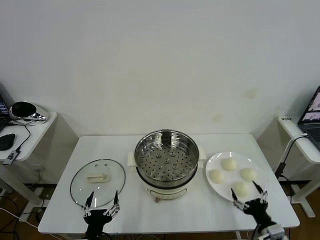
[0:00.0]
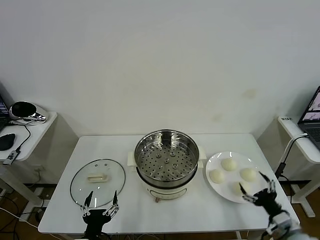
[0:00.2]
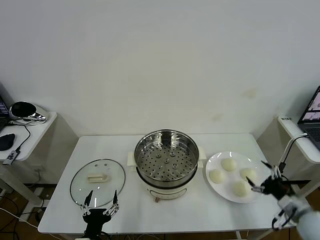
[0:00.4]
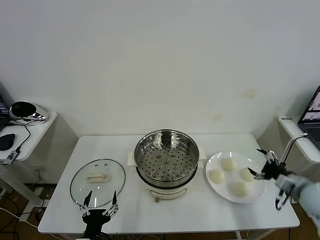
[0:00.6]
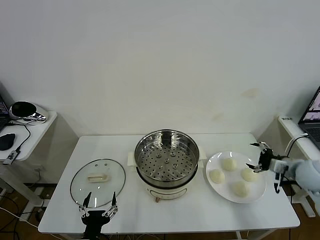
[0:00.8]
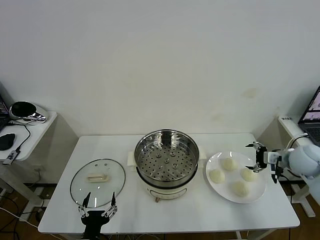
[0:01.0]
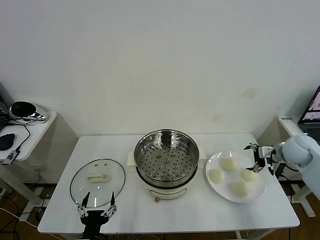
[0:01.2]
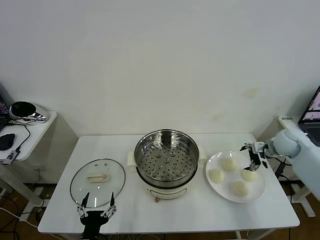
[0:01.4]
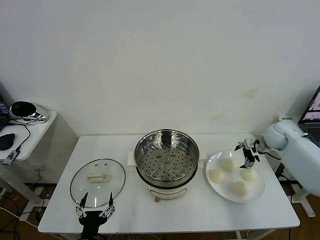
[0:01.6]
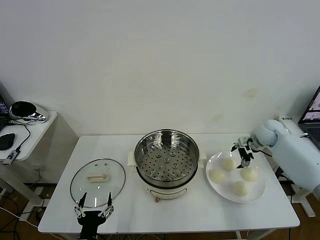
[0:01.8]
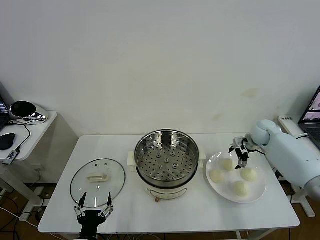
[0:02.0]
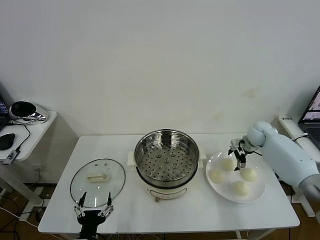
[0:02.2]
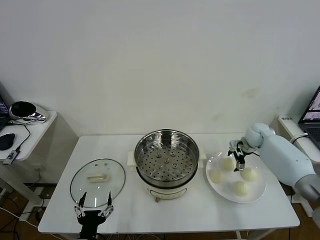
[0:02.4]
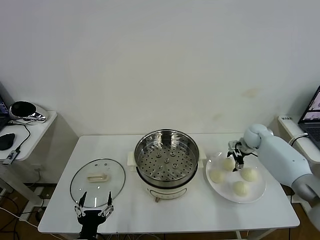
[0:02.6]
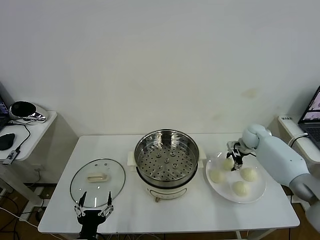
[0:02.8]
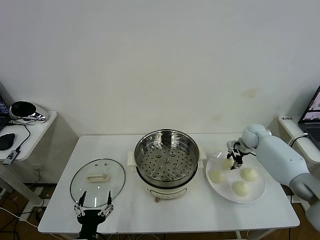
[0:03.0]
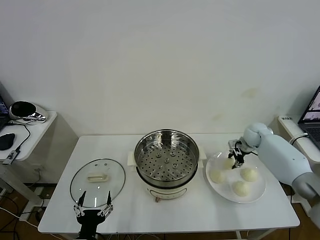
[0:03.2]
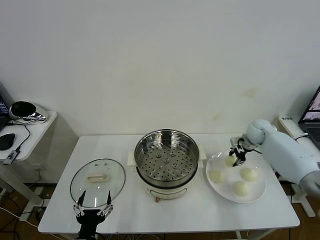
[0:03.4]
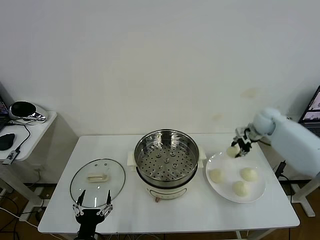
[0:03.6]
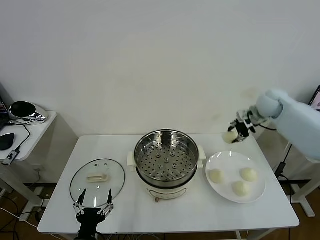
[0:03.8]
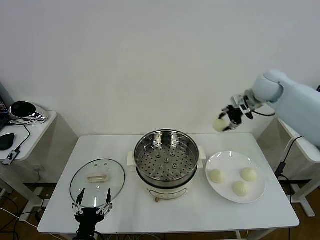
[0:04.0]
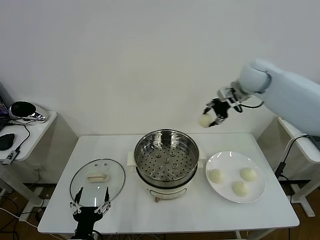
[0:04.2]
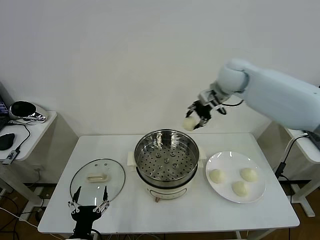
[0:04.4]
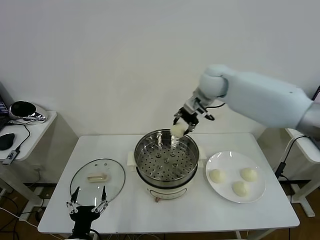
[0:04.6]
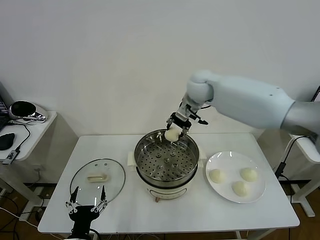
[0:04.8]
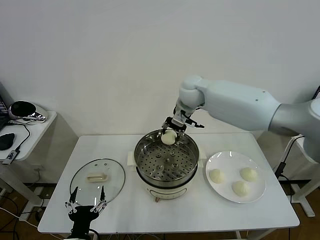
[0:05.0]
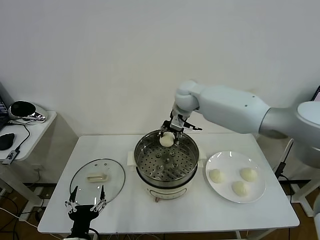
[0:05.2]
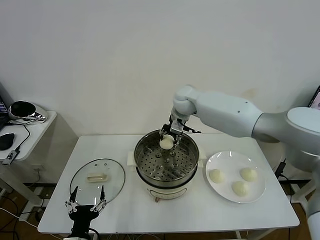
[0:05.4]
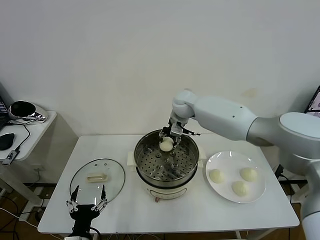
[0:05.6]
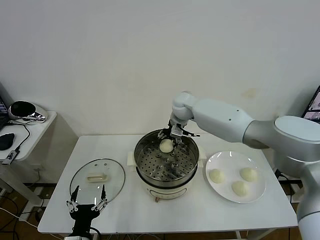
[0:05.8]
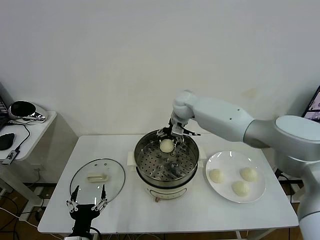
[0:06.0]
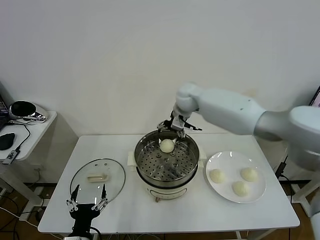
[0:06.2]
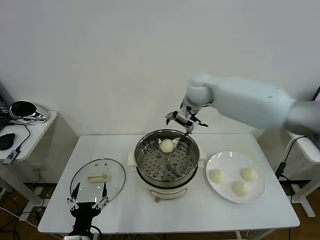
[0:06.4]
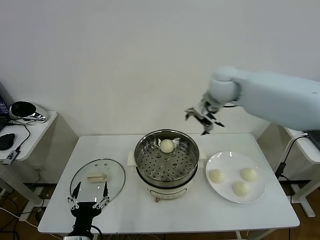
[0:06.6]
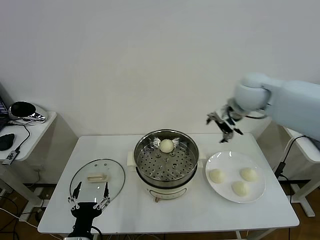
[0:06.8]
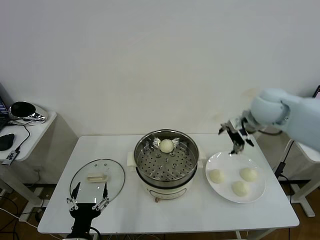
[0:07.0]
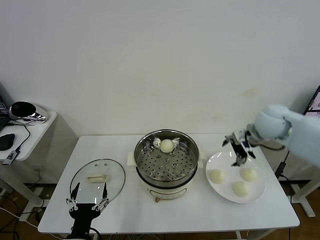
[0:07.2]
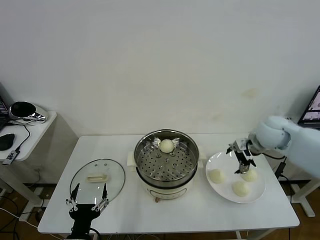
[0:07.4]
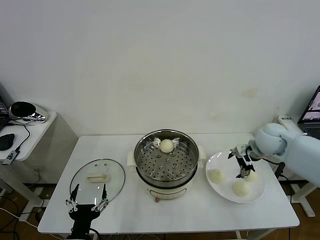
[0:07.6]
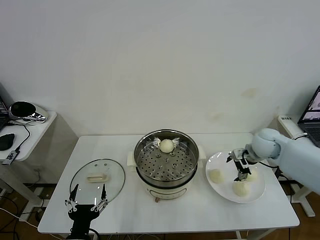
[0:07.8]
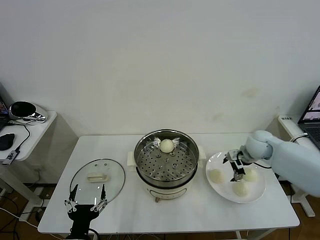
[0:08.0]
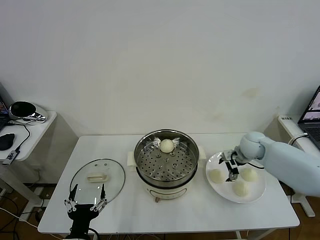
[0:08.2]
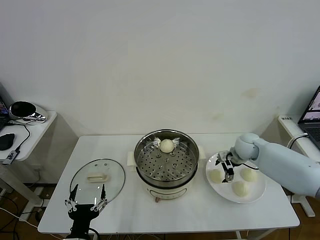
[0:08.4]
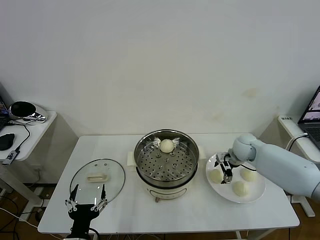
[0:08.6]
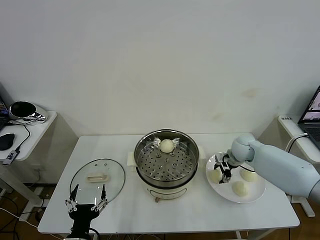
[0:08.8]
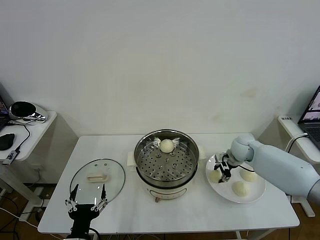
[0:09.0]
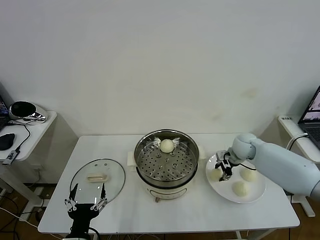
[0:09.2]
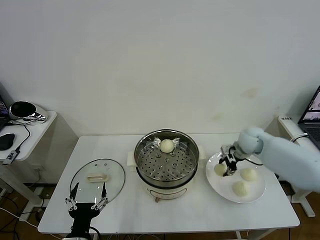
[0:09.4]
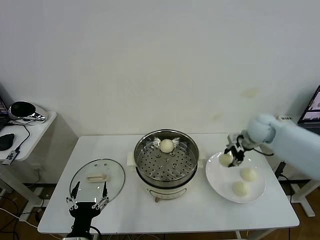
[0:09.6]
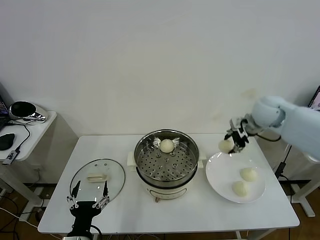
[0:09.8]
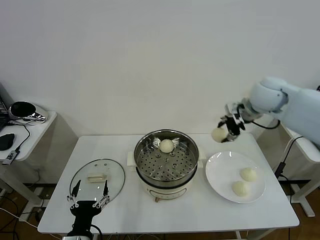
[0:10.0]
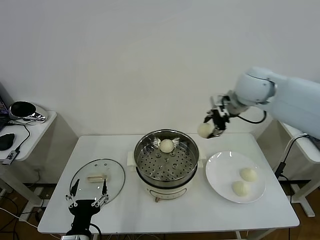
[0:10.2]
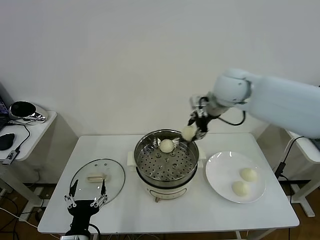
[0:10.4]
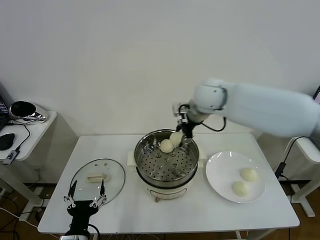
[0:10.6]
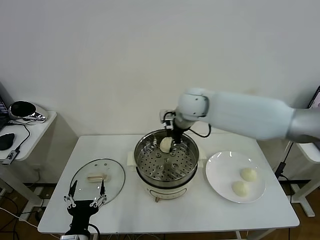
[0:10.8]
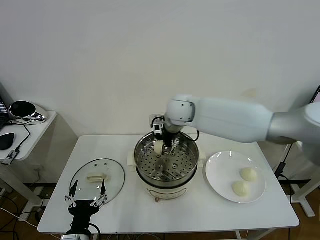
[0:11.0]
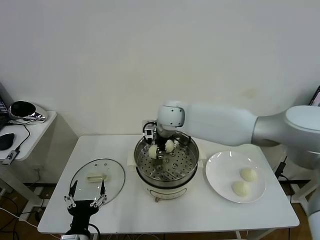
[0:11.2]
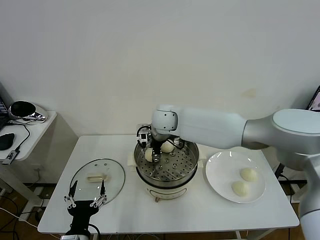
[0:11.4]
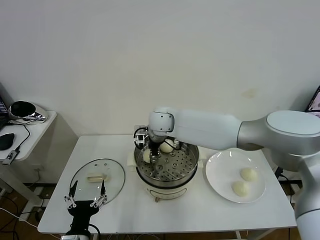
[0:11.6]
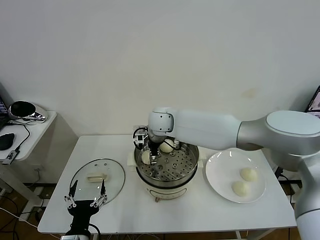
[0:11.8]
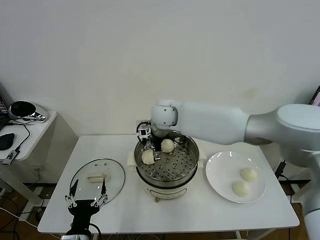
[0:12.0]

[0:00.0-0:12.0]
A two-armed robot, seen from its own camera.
Task of the whole recording: take steamed baozi put them in steamer then cover it.
Step, 0.0 to 2.8 s: Grasp the baozi in the plate with right gripper.
Step, 3.0 to 6.0 s: Place the baozi on the steamer with right gripper.
Step, 6.2 to 9.0 s: Grasp the baozi in the plate with right gripper.
Step, 9.2 to 11.8 s: Place the baozi on the steamer with right gripper.
1.6 to 3.0 s: The right gripper changes place by roughly 5 cm, and closes up.
3.0 to 4.4 s: The right gripper moves upward and to the left, some 30 cm.
4.4 to 6.0 s: The right gripper moves downward and to the left, about 15 cm, and opens its fingers.
6.0 to 7.6 s: The right gripper shifts roughly 30 cm to the right and backward.
7.6 to 9.0 s: The right gripper heads downward, covering roughly 10 cm, and closes its fingers.
9.0 to 10.4 s: The right gripper goes roughly 30 cm upward and to the left.
10.4 to 12.0 s: The right gripper travels to the left and downward by some 15 cm, and opens its fingers.

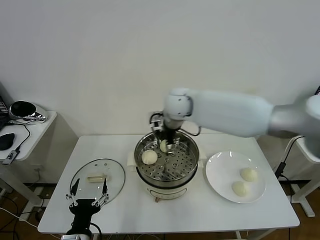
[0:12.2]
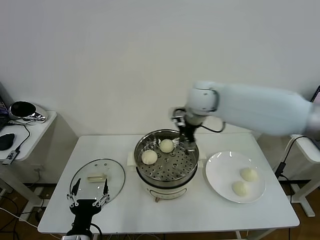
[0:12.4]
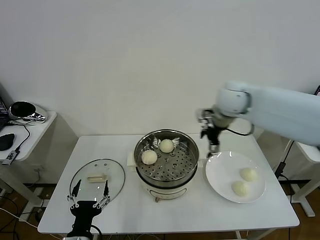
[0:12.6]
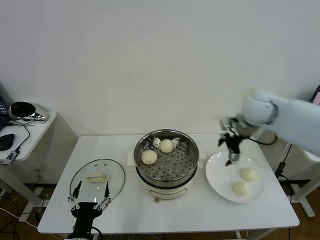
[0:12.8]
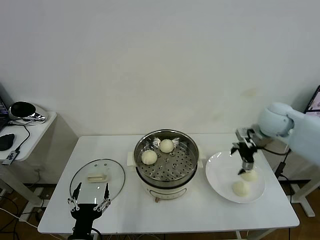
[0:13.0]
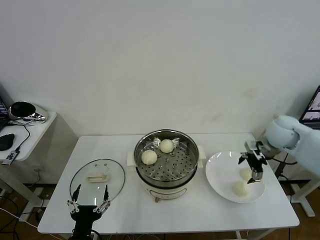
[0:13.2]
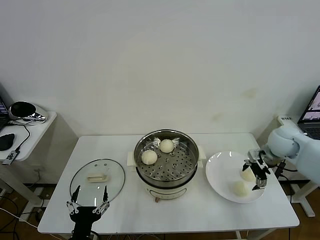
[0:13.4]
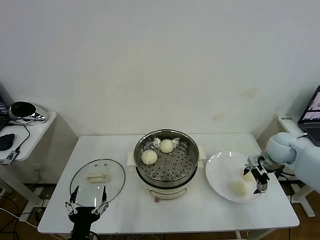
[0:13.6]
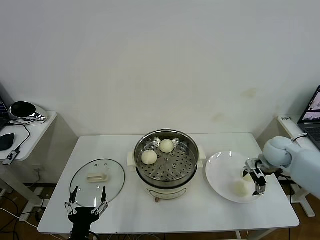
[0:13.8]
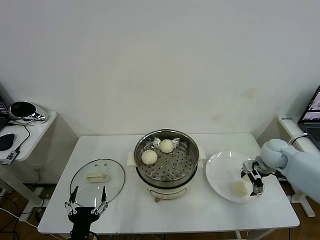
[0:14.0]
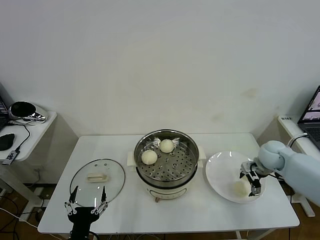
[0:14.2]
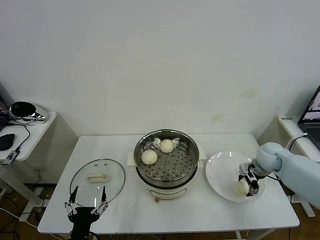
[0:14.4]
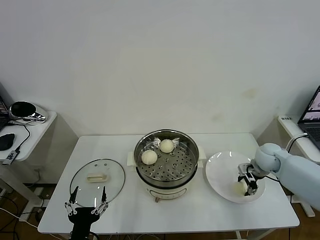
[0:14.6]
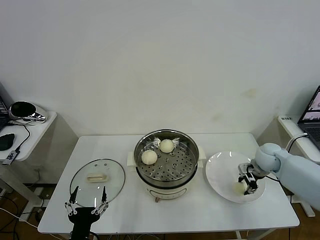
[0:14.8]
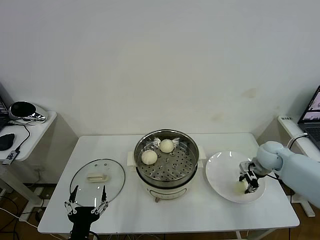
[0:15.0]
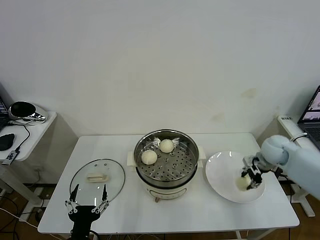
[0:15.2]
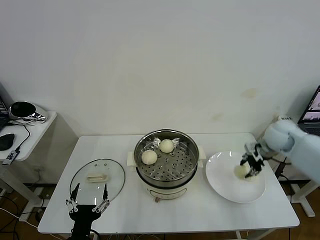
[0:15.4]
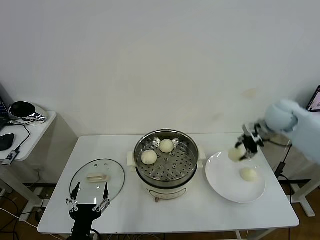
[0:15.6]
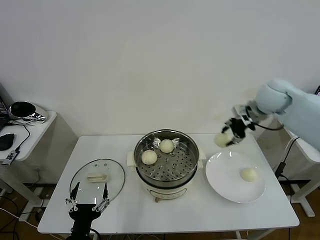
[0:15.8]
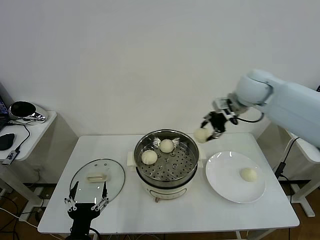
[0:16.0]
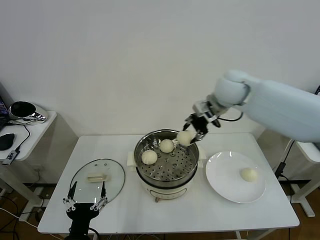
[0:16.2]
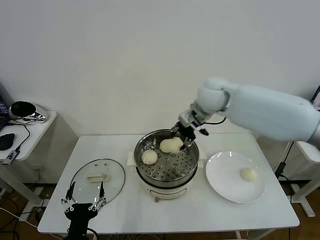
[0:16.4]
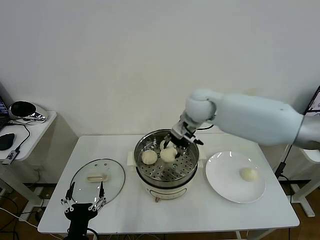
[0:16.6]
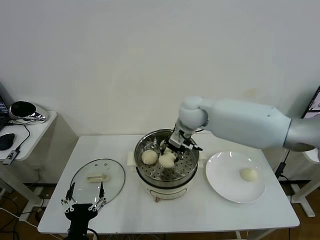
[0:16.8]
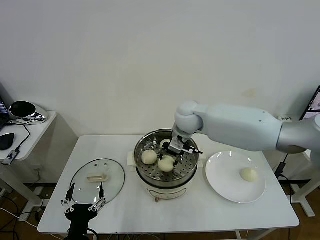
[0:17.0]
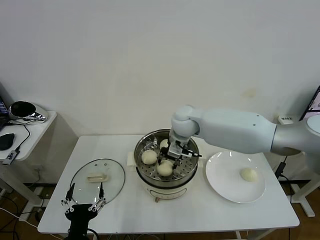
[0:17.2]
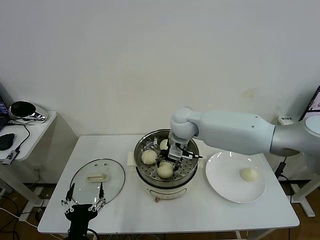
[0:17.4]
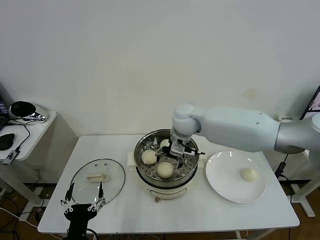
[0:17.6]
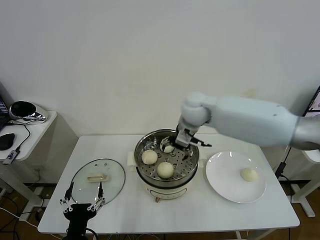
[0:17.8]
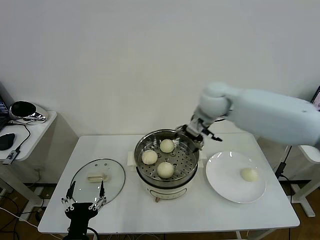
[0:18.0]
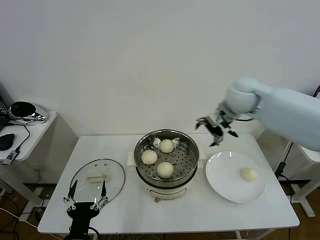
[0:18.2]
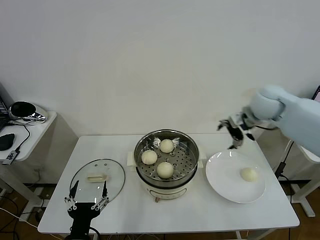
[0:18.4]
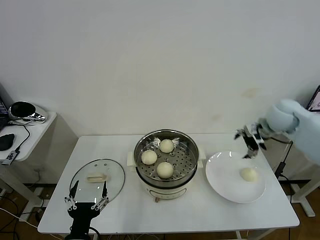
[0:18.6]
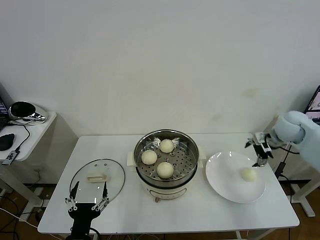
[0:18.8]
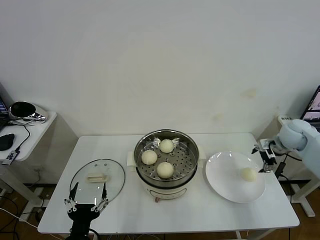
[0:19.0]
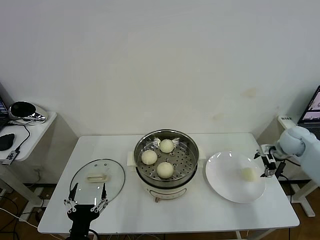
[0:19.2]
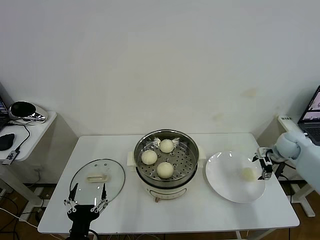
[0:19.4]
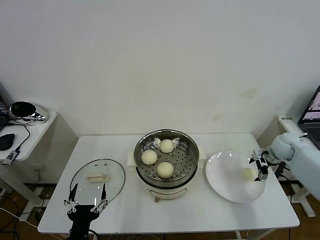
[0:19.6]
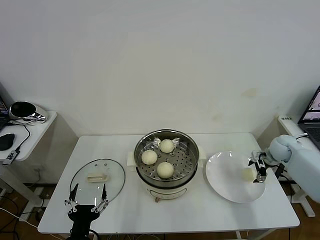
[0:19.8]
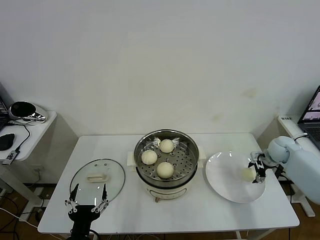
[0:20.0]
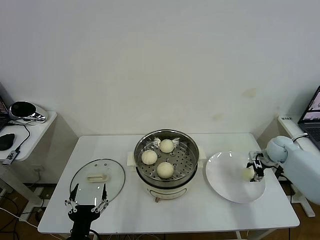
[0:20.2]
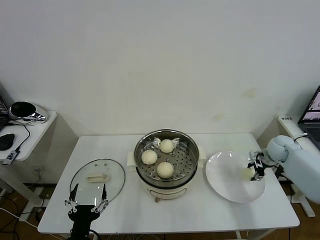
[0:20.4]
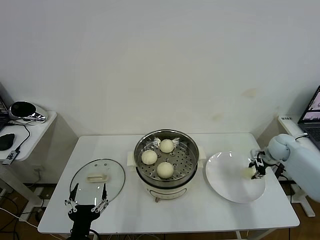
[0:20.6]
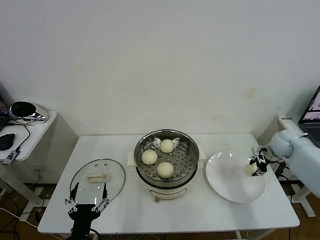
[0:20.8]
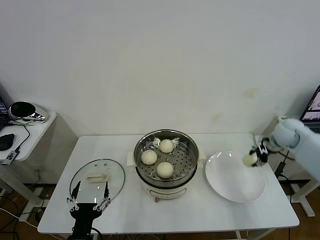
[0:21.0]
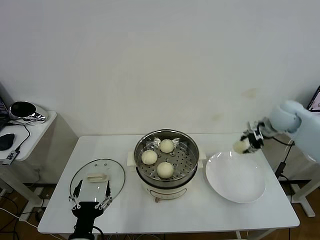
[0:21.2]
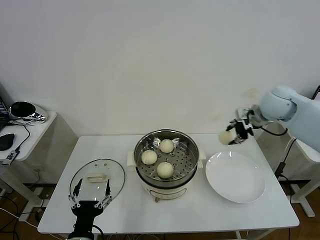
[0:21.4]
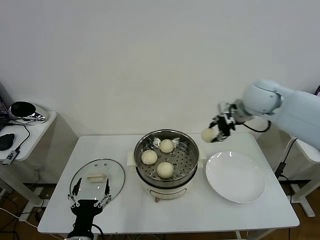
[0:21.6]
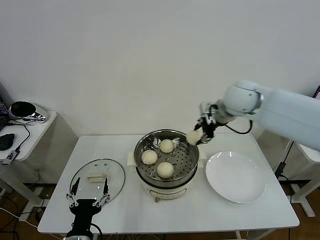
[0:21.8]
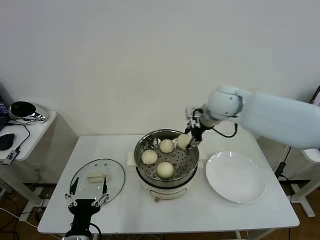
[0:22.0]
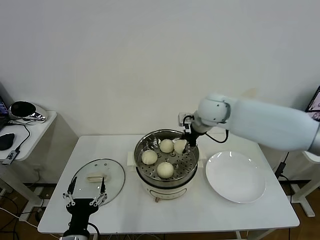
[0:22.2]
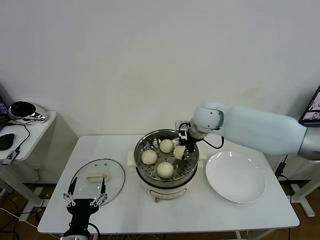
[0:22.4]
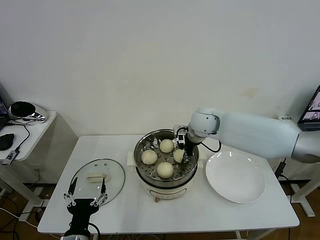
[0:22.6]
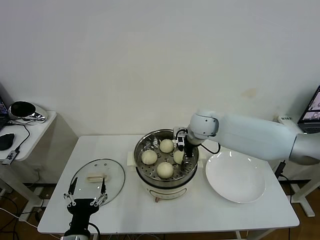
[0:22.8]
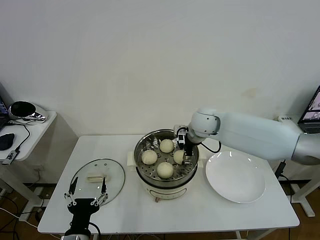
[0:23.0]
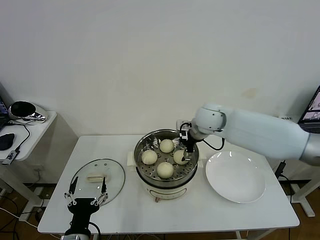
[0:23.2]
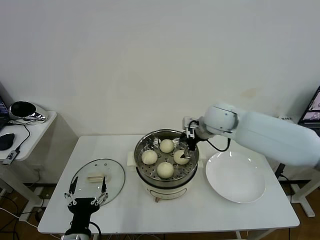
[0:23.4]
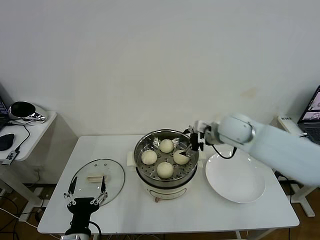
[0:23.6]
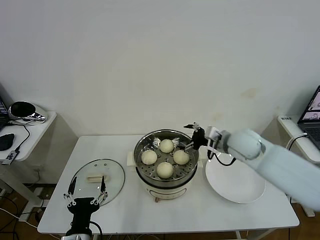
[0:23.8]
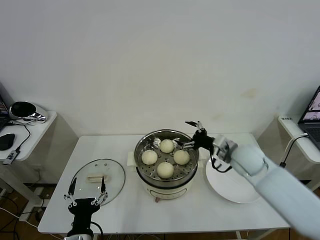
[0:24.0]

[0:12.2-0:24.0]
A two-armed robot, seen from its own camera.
Task of the whole recording: take steamed baozi put them in steamer then cover it.
Step, 12.2 to 14.6 s: Grasp the baozi in the plate with right gripper.
Step, 14.8 to 17.6 s: Place the baozi on the steamer with right gripper.
Step, 17.8 to 20.2 s: Grasp the baozi in the plate with right gripper.
Step, 20.6 to 23.0 s: Place the baozi on the steamer with right gripper.
12.2 to 13.6 s: The right gripper goes about 35 cm to the right and downward.
13.6 to 15.2 s: The right gripper closes its fingers.
15.2 to 16.6 s: The right gripper moves to the left and upward, roughly 30 cm.
16.6 to 18.2 s: The right gripper heads to the right, covering roughly 15 cm, and opens up.
18.2 to 19.6 s: The right gripper heads to the right and downward, covering approximately 30 cm.
19.6 to 21.0 s: The right gripper is displaced upward by roughly 10 cm, and closes its fingers.
21.0 to 22.6 s: The right gripper moves to the left, roughly 30 cm.
22.6 to 24.0 s: The right gripper moves to the right, backward and downward, about 15 cm, and opens up.
